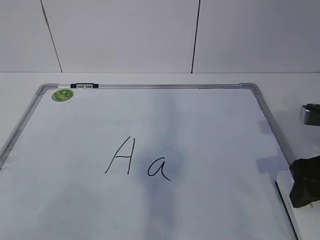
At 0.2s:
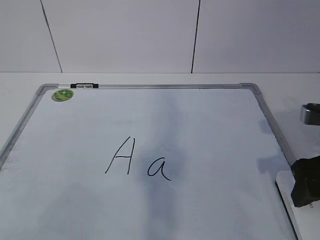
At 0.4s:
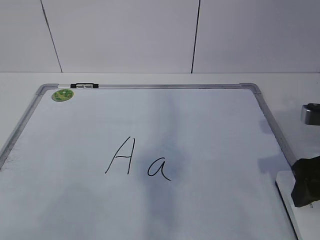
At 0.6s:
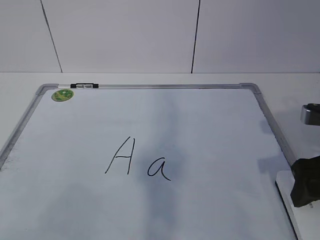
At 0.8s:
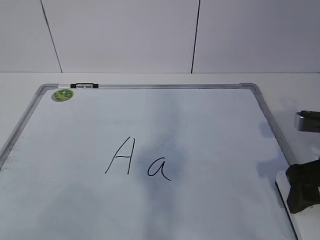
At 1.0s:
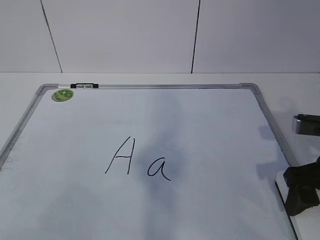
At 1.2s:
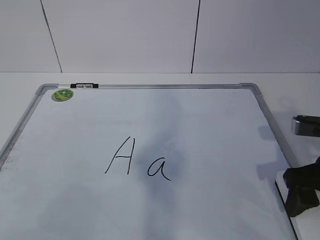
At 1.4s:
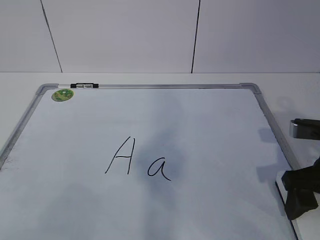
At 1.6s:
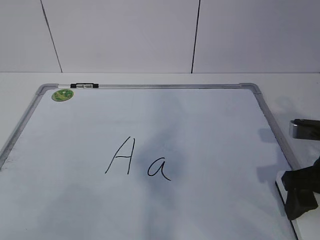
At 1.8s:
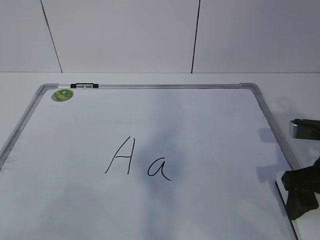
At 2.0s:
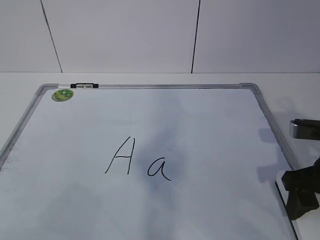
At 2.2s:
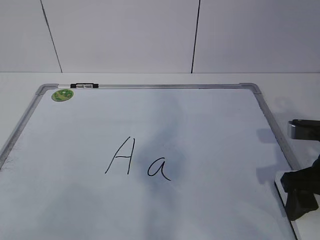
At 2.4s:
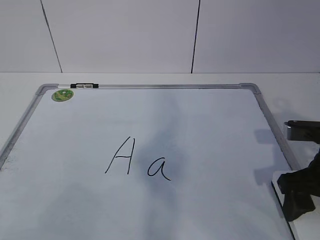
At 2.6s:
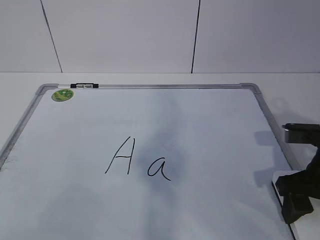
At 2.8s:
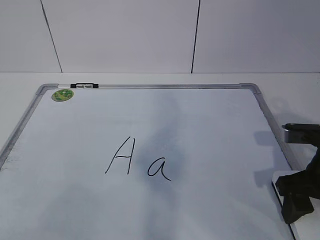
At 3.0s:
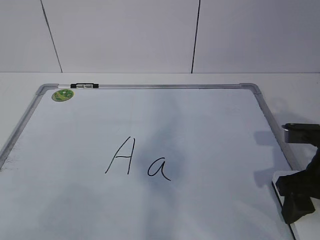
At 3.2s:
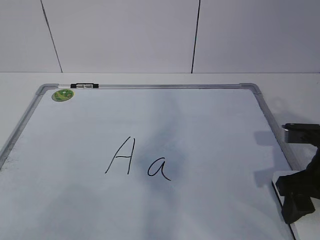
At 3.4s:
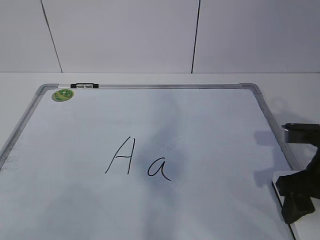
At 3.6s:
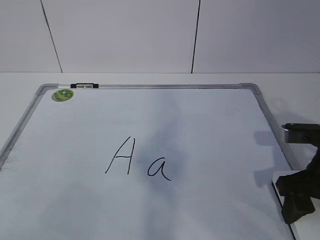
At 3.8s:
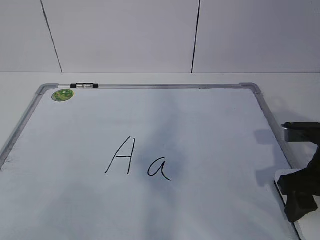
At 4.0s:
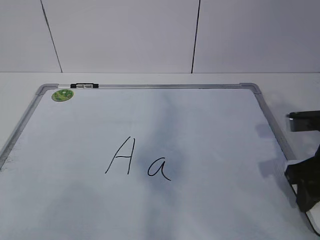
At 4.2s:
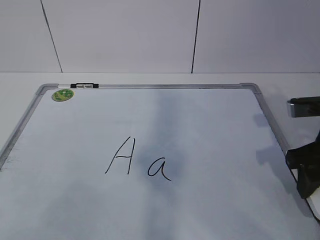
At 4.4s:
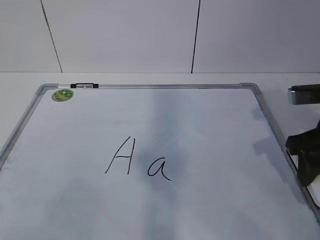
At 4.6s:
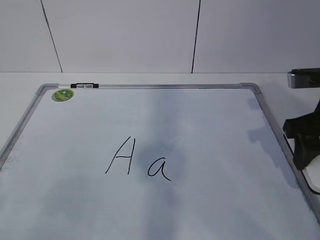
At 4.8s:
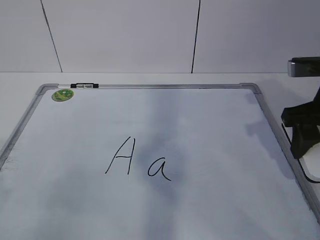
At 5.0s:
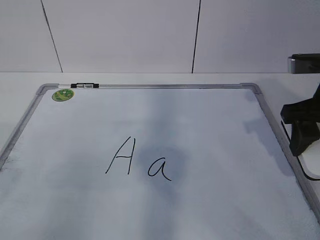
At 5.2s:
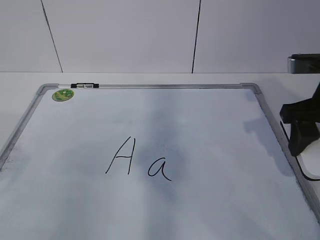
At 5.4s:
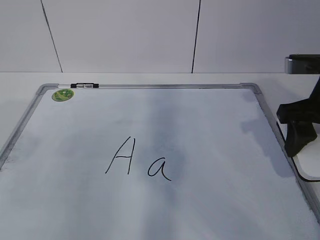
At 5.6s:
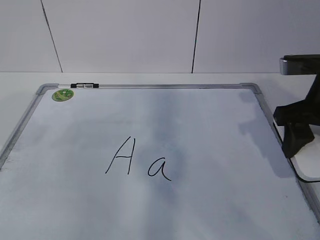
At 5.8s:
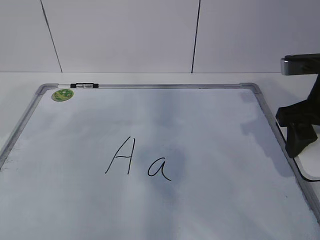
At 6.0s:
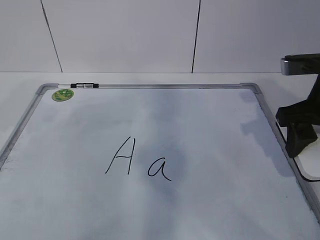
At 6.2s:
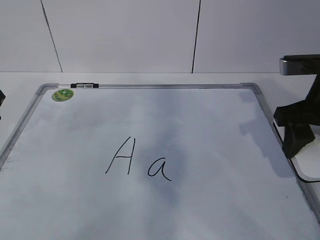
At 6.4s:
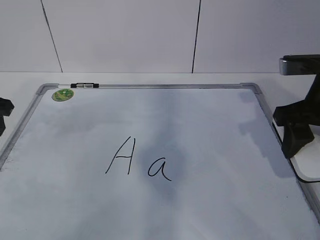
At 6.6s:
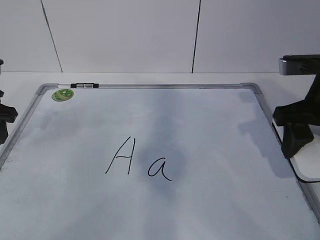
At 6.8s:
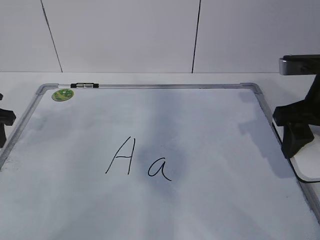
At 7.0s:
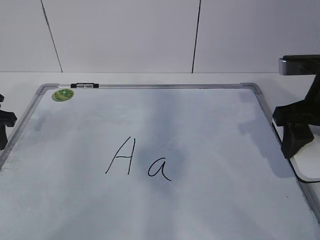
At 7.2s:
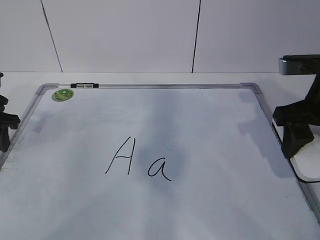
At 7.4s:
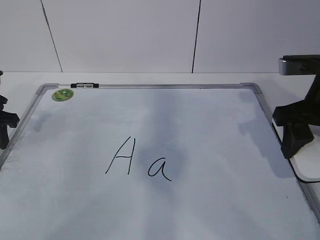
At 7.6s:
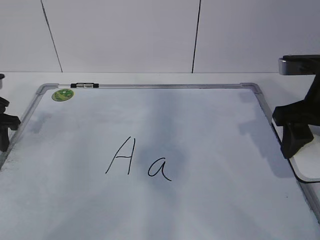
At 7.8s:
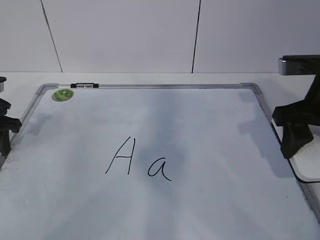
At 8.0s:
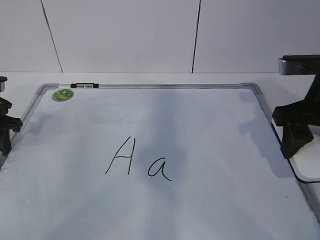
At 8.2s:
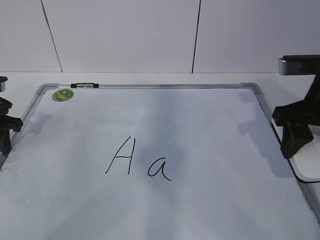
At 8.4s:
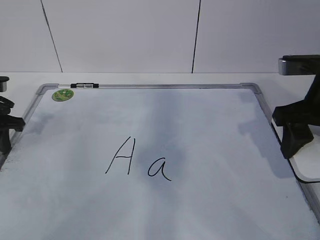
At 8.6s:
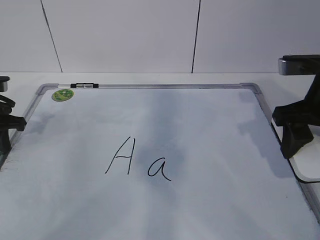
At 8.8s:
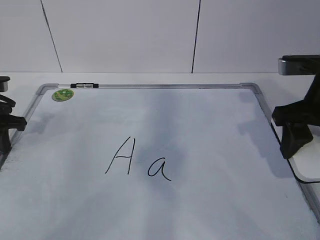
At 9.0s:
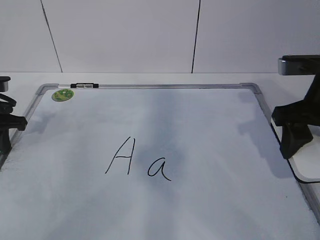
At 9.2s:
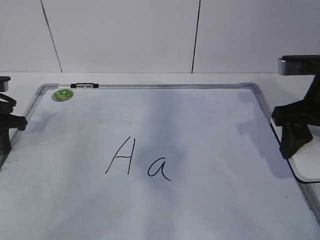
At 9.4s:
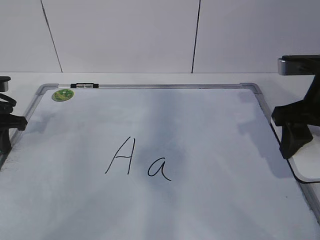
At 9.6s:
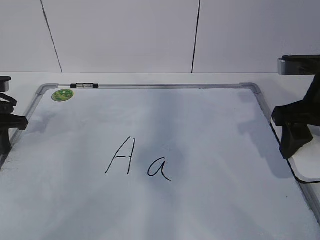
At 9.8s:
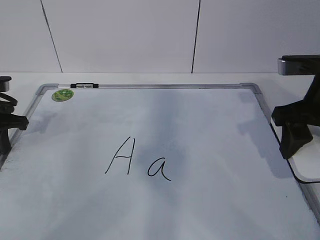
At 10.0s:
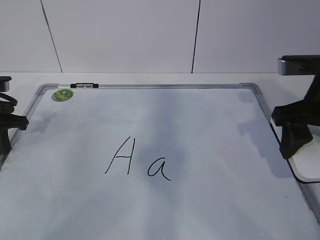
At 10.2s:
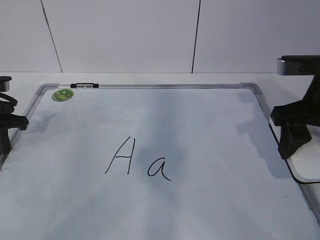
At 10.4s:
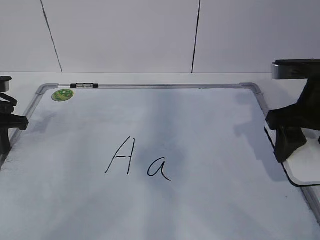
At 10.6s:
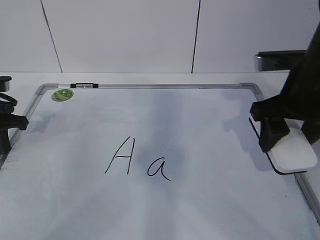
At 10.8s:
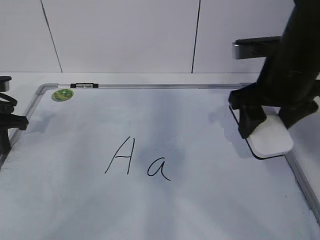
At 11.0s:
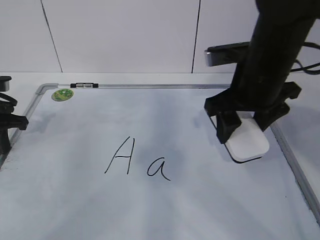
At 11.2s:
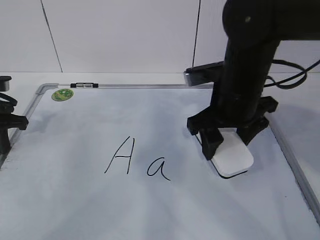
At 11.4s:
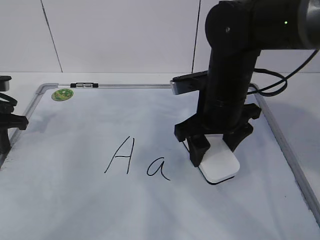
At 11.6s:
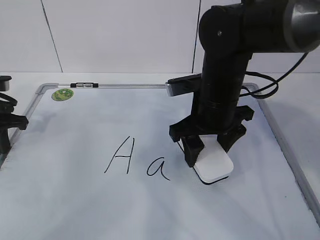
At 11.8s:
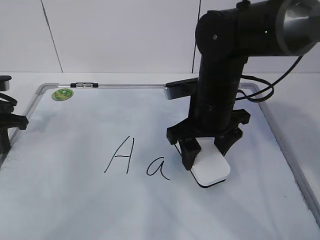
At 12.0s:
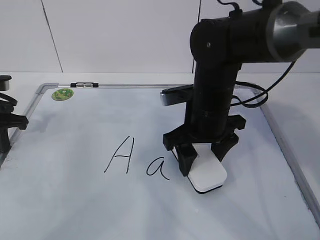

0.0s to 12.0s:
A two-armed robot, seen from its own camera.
Task of the whole recording: pick up the eraser on the blackboard and erase the letter "a".
Step, 1.4s to 6.8s: Hold the drawing board steady with your left hand.
Step, 7.0s to 11.8s: Erase the letter a with your right hand.
0.0s to 1.6s: The grippers make only small movements.
1.6s to 3.0s: The right gripper closes its fingers.
3.0s to 4.4s: The right gripper shifts approximately 5 cm upward.
6.0s to 7.6s: The left gripper moves downward and forward, roughly 10 cm.
7.6s to 9.0s: The left gripper closes up.
9.0s to 10.4s: Both grippers stay about where they are.
10.4s to 12.0s: The right gripper travels to the left and downward by roughly 15 cm.

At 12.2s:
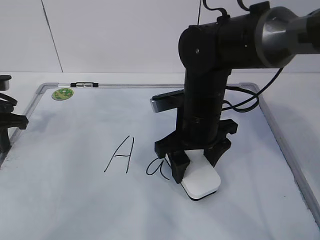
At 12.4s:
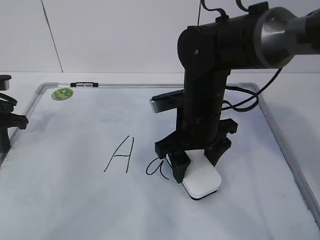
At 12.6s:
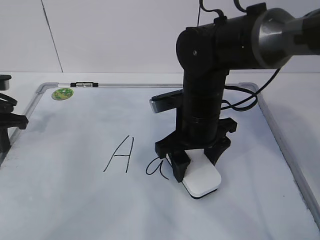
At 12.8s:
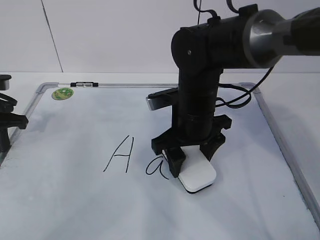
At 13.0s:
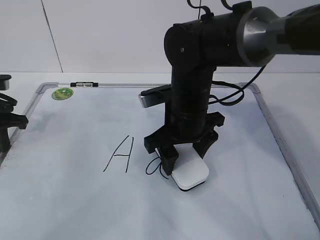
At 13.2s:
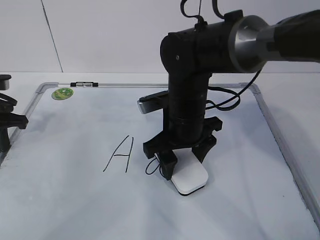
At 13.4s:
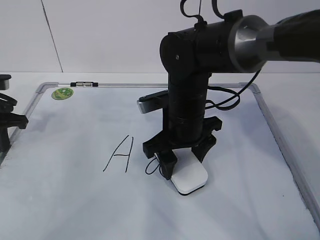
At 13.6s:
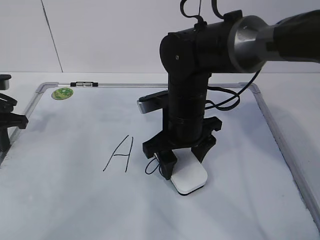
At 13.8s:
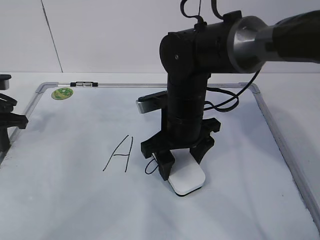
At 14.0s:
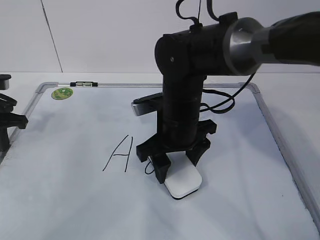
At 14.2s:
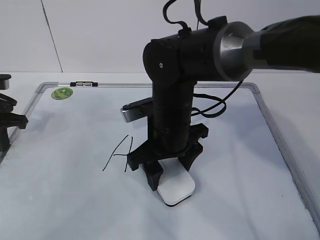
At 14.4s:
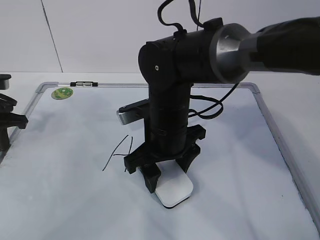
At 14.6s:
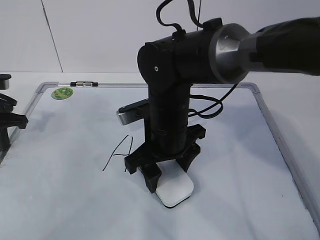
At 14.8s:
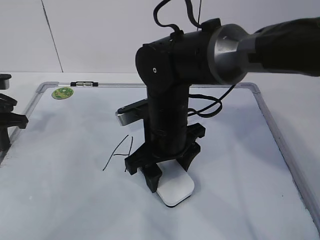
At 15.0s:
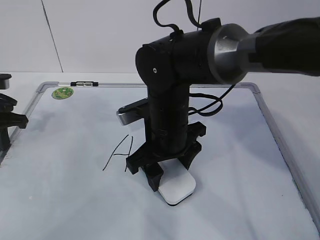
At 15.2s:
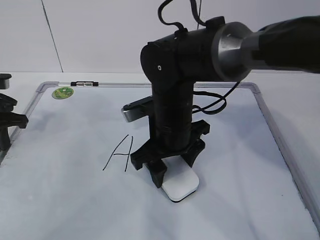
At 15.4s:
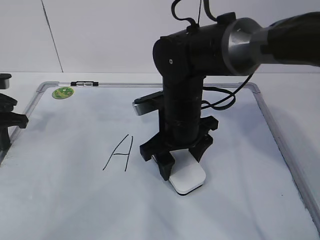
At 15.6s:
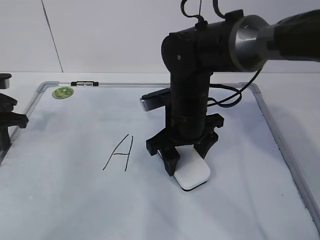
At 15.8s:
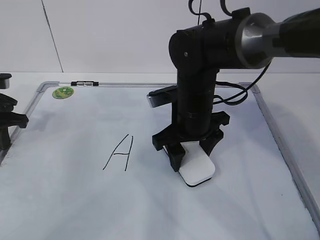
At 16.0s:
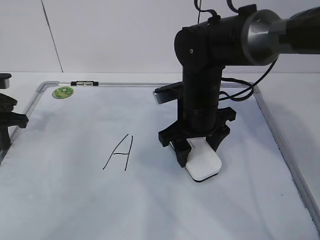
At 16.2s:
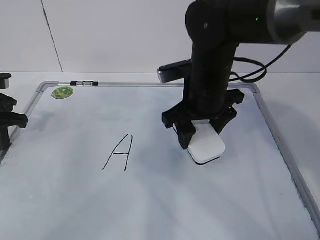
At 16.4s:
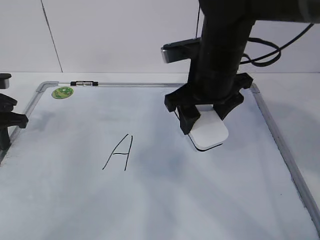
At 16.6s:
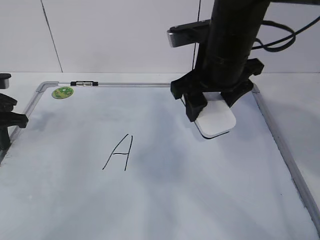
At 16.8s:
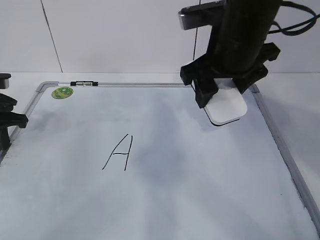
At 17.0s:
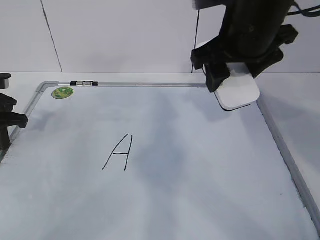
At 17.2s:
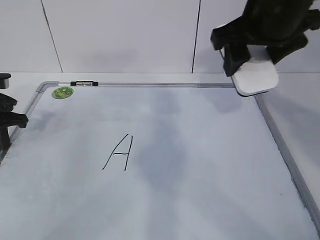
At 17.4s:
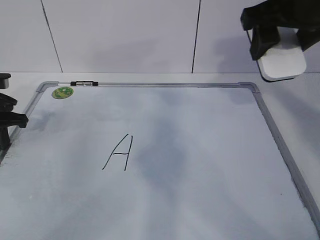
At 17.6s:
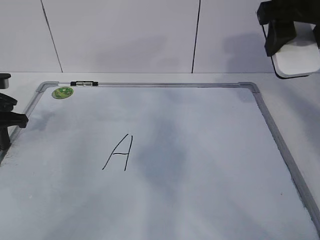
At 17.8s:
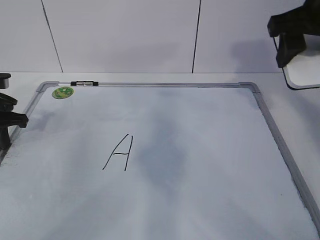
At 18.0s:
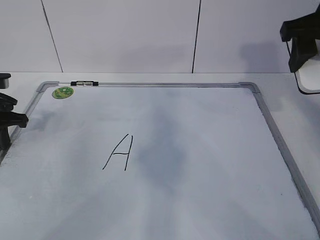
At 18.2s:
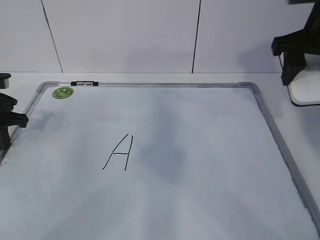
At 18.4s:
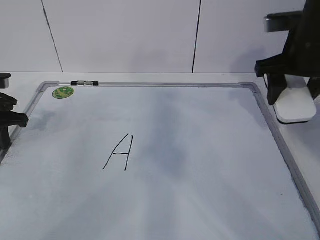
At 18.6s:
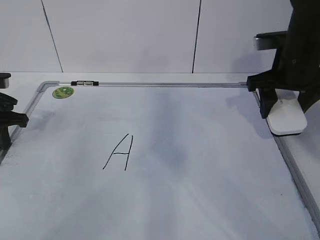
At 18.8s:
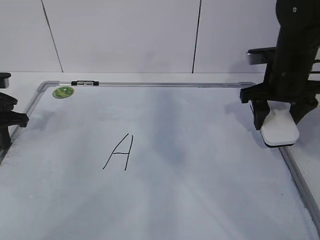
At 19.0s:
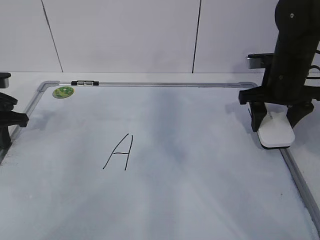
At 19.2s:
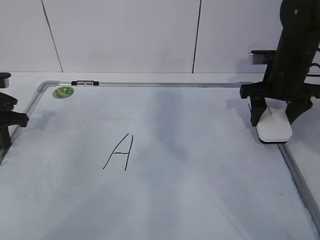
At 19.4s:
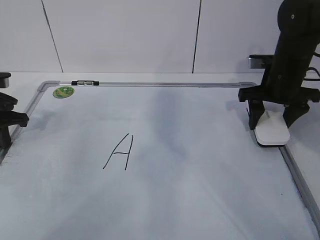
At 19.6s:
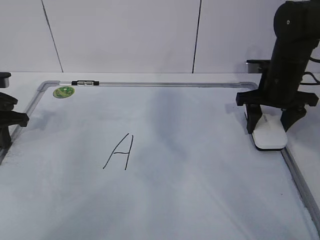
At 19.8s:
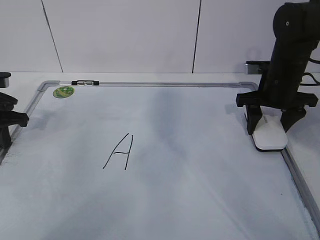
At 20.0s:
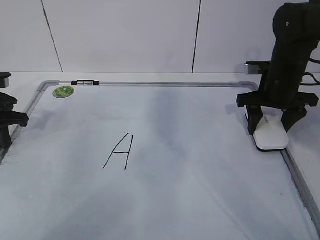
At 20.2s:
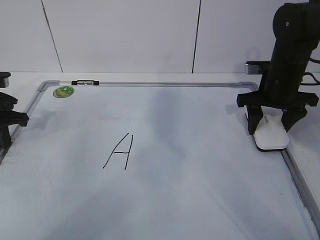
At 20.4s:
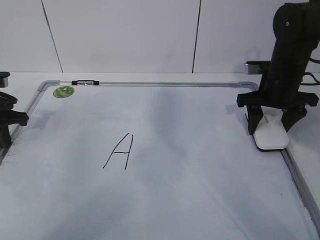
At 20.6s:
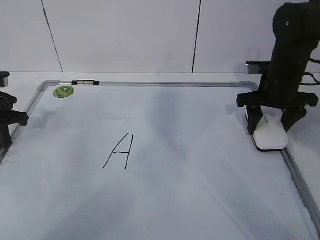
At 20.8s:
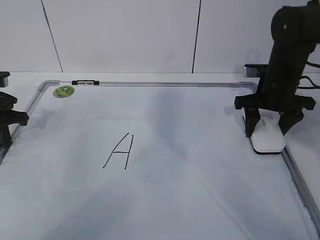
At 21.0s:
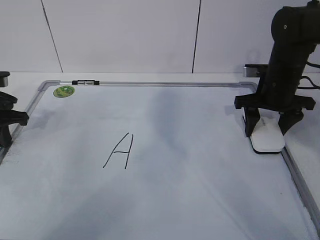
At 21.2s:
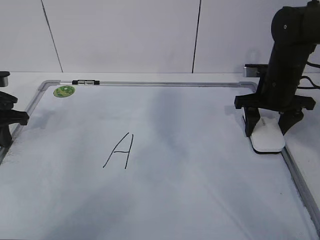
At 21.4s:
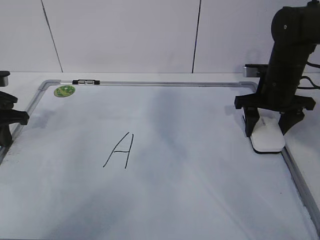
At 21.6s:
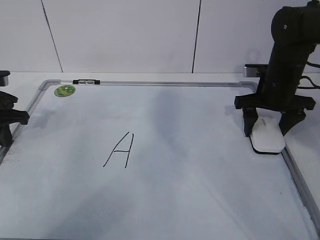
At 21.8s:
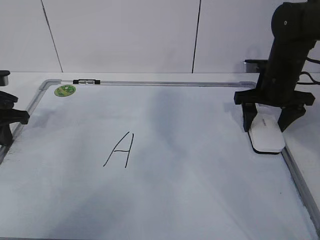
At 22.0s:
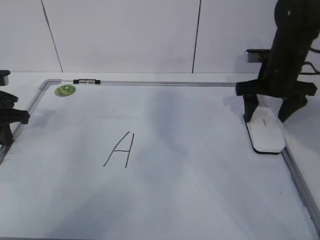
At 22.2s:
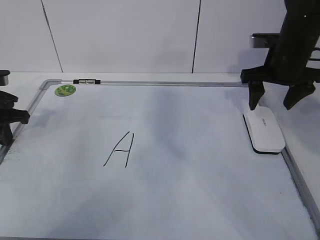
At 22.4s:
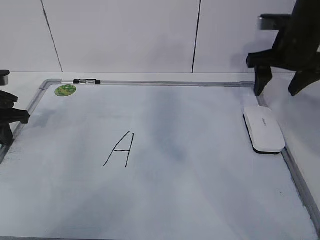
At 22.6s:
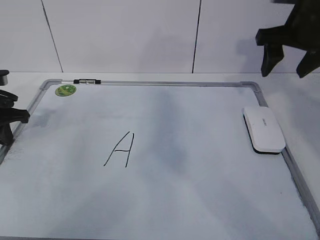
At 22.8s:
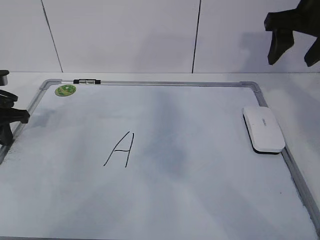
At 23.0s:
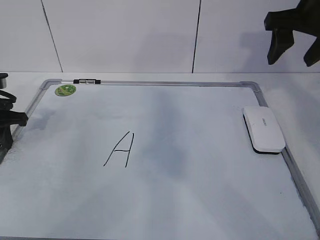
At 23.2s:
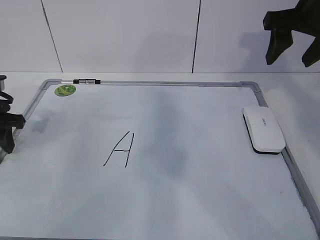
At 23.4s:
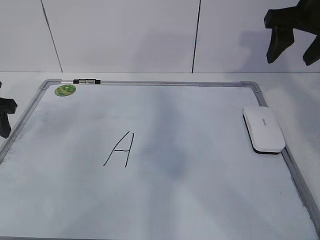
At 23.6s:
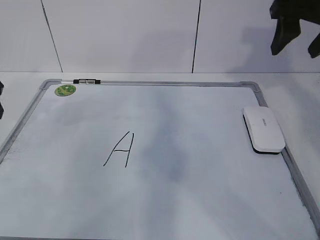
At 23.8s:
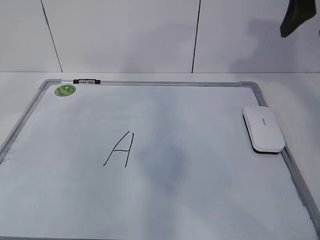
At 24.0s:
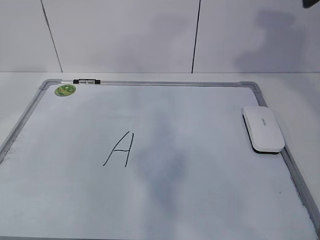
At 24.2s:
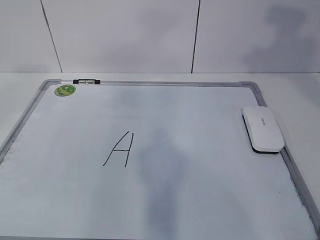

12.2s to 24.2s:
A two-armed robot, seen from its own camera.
Task of the whole recording: pick up the eraser on the blackboard and erase the letter "a".
Step, 12.2s to 16.6s: Put down the eraser with your right hand.
12.2s to 15.2s: The grippers make only small movements.
15.2s to 16.6s: The right gripper travels upward and to the right by about 10 cm.
16.6s to 18.2s: The right gripper shifts approximately 15 cm to the right.
18.2s to 19.8s: The right gripper moves downward and forward, approximately 15 cm.
19.8s to 21.2s: Both grippers stay put.
21.2s to 22.6s: The right gripper moves upward, approximately 10 cm, and opens up.
22.6s to 24.2s: The two grippers go approximately 25 cm upward and backward. The left gripper opens up.
